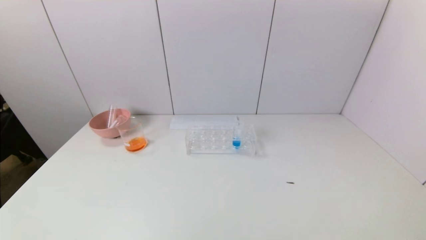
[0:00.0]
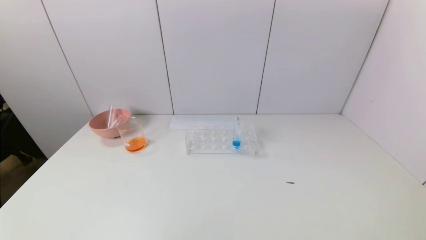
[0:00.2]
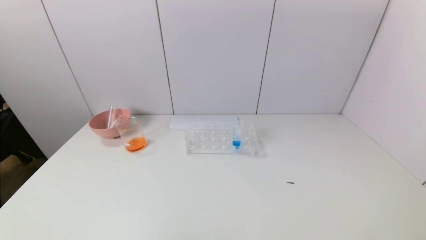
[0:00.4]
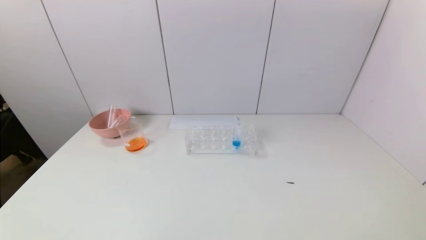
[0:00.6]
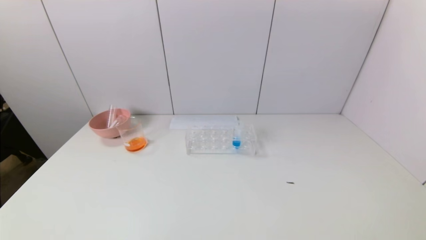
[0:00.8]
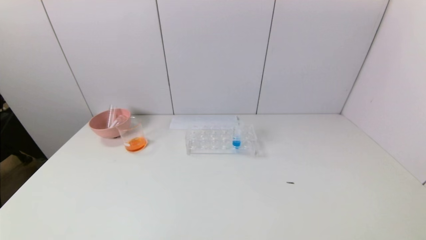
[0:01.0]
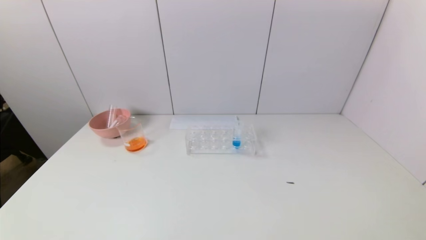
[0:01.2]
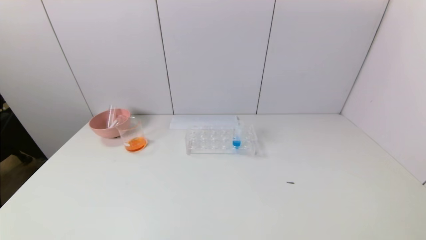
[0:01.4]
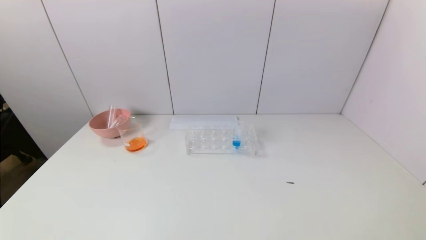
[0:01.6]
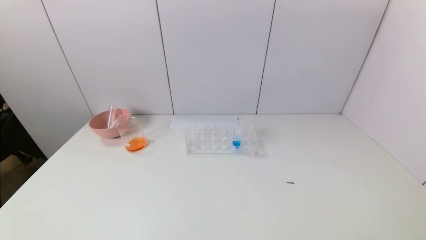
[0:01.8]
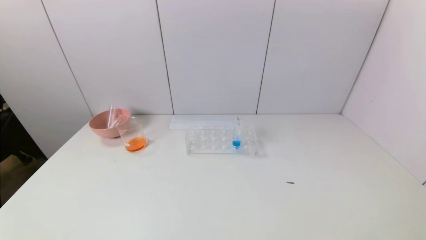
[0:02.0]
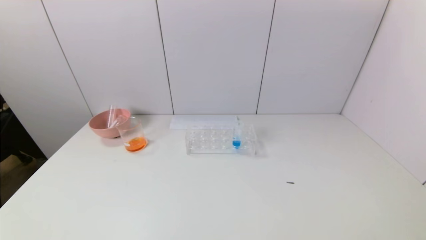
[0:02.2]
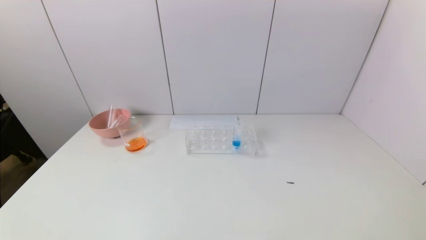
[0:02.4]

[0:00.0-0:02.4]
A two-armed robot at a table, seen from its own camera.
Task of the whole recording: pick up the test tube with yellow pigment and the test tube with red pigment by grippers and pour them into the beaker.
0:01.2 to 0:02.4: Both grippers stay about where they are.
